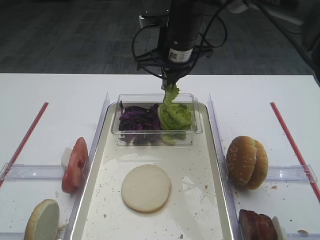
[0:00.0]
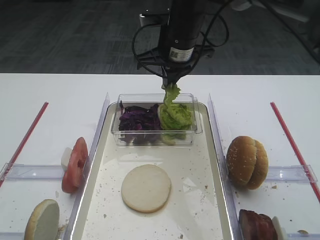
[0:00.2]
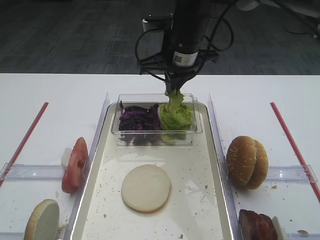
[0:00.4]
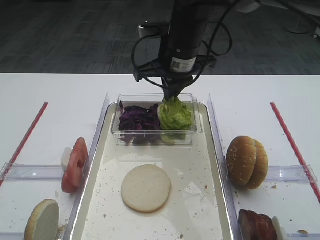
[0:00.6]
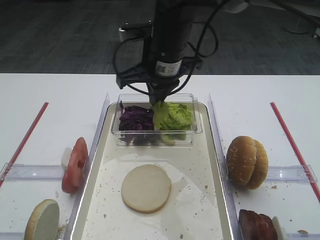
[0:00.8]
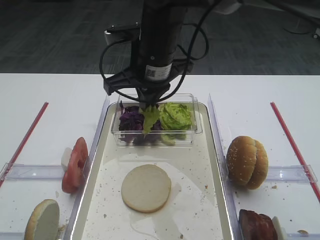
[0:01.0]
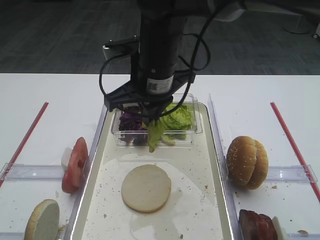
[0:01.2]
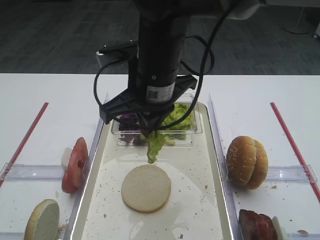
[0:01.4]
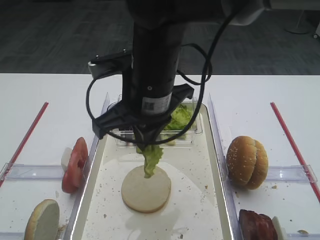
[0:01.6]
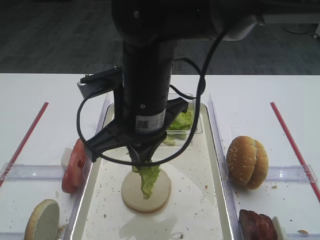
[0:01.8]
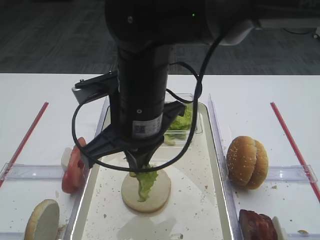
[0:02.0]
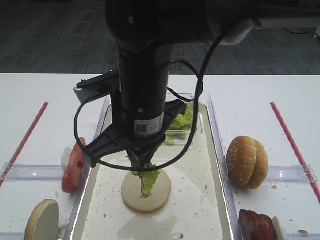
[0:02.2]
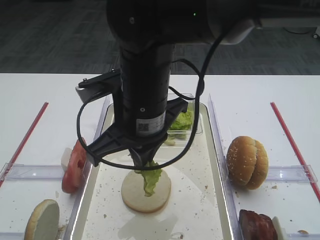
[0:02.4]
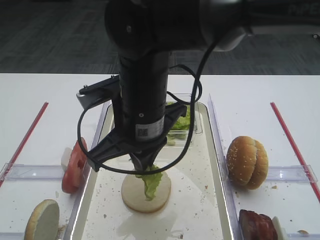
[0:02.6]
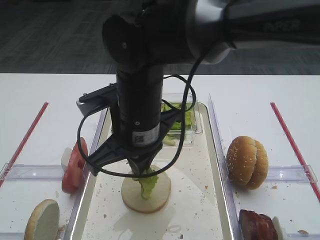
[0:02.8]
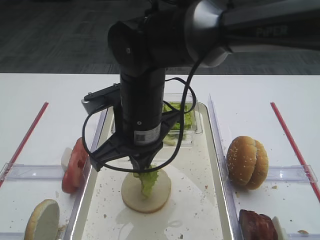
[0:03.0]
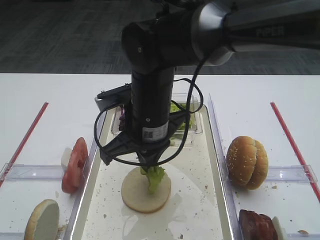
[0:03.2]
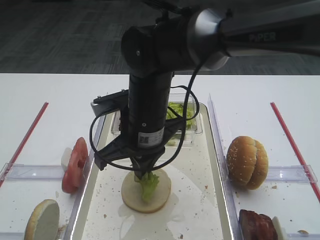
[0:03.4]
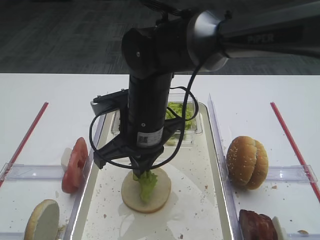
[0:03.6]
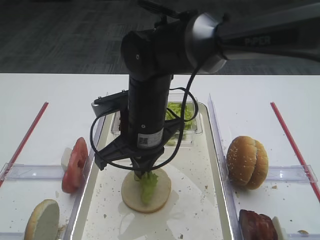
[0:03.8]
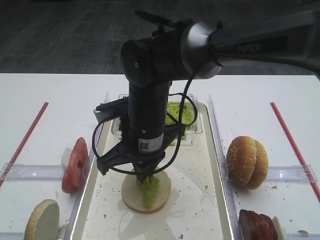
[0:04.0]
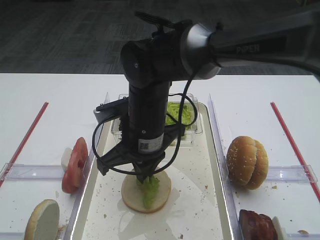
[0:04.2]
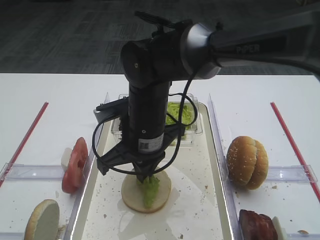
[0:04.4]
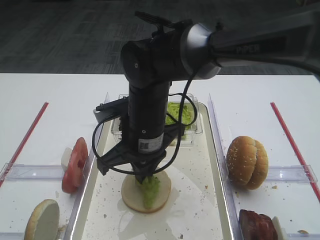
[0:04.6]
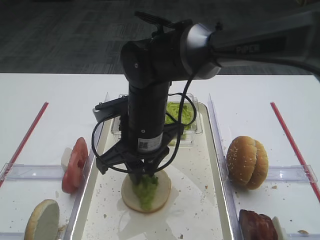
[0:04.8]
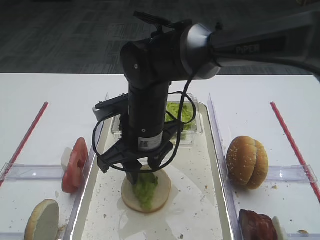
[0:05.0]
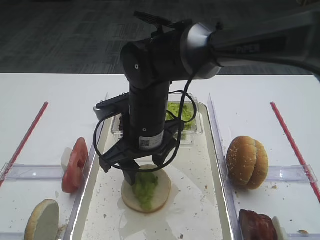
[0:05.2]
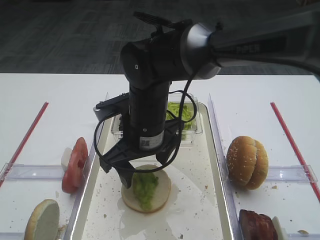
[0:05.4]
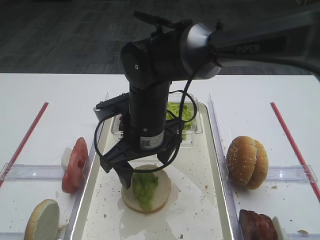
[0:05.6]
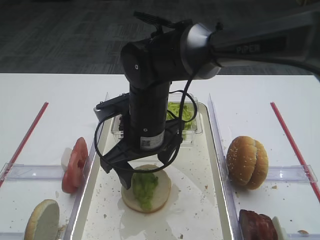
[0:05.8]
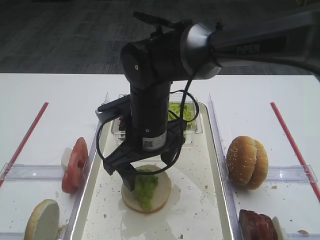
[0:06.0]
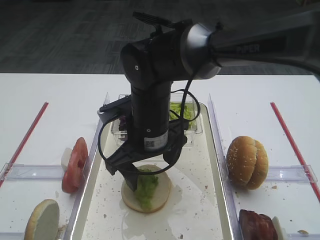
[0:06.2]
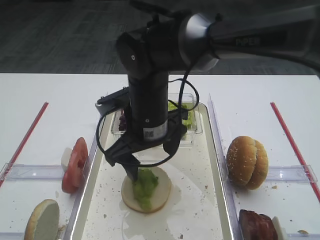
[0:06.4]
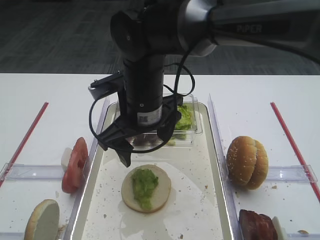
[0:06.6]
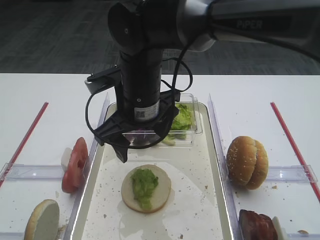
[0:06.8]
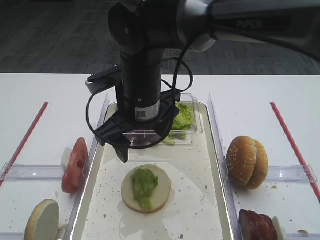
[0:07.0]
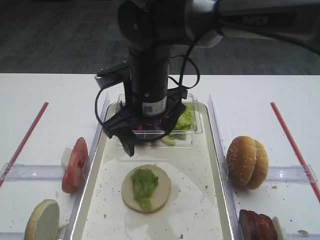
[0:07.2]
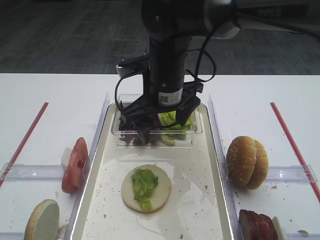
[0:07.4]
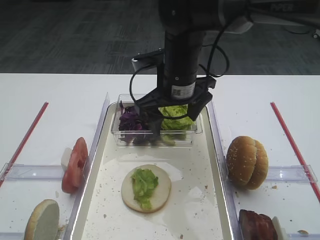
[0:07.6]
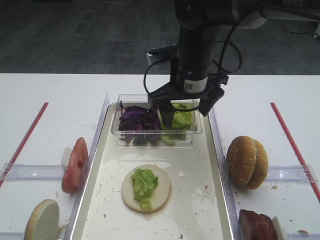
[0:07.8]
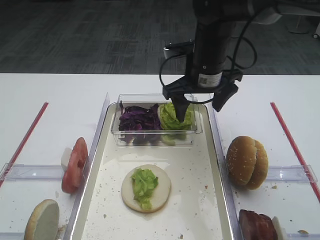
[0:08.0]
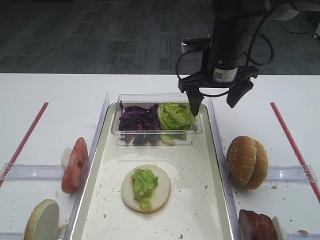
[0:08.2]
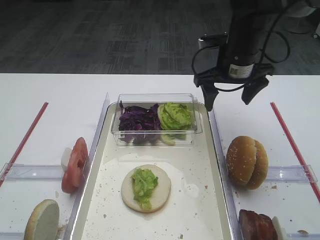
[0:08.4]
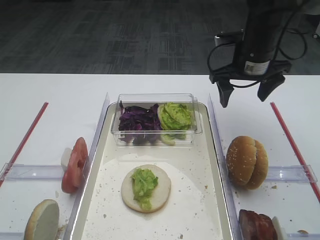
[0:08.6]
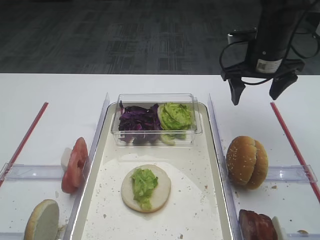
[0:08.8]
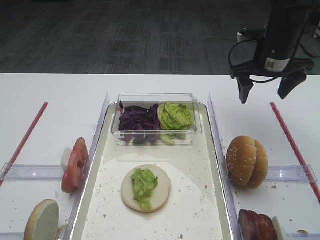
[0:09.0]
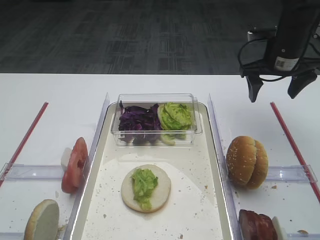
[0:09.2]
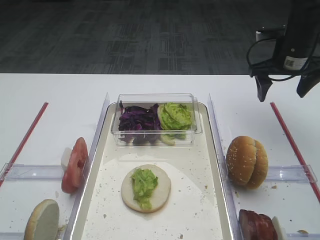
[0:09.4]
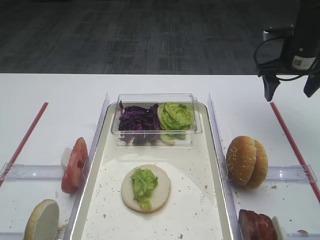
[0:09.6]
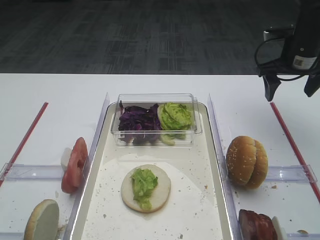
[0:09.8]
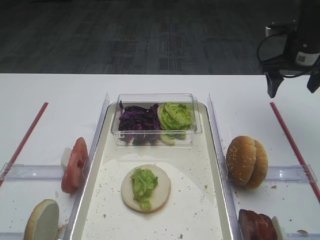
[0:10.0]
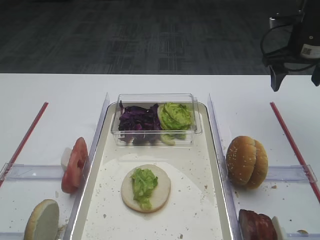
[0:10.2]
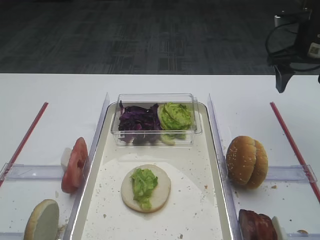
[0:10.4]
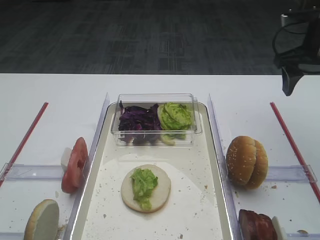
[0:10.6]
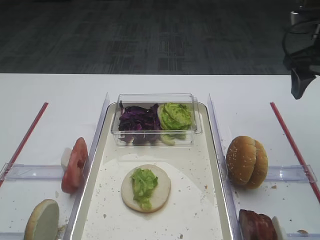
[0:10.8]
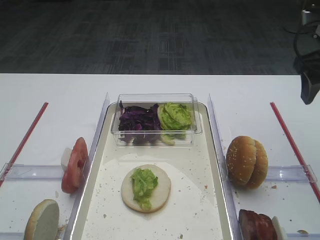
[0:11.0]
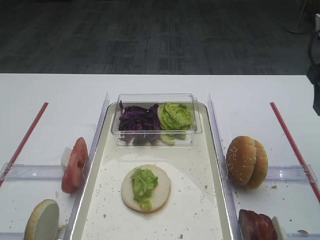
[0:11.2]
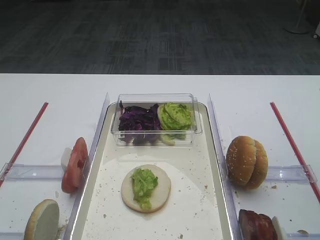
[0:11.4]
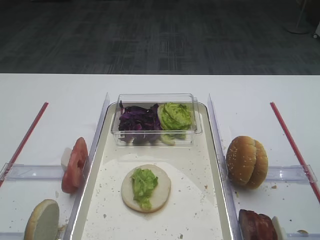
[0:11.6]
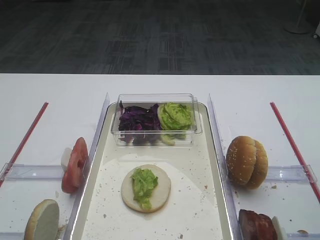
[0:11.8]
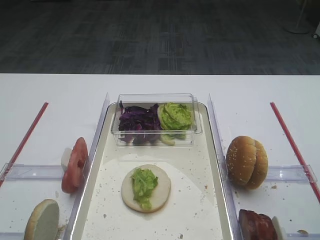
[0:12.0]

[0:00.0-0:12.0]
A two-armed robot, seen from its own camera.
Step, 0:00.0 to 0:06.0: Place the lettuce leaf on the bread slice with the right gripper.
0:00.0 to 0:01.6: The right gripper travels backward by approximately 15 cm.
0:01.6 to 0:03.0: The right gripper moves roughly 5 cm.
0:03.0 to 0:04.4: There are only small adjustments of the grippers.
0:04.4 to 0:06.0: The right gripper opens.
0:06.0 to 0:07.6: The right gripper goes about 10 cm forward and to the right.
0:07.6 to 0:09.0: The right gripper is displaced to the right and forward by roughly 20 cm.
0:09.0 to 0:10.4: The right gripper is displaced to the right by approximately 5 cm.
0:10.4 to 0:12.0: The right gripper shifts some 25 cm backward.

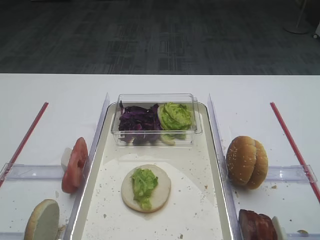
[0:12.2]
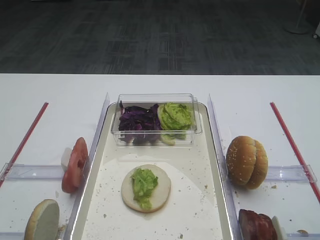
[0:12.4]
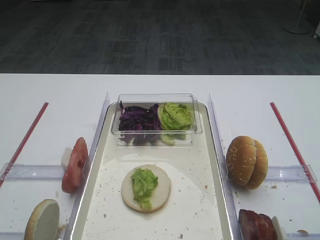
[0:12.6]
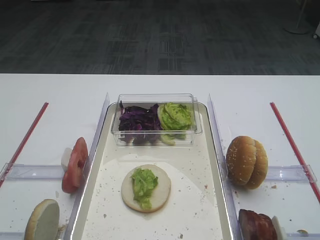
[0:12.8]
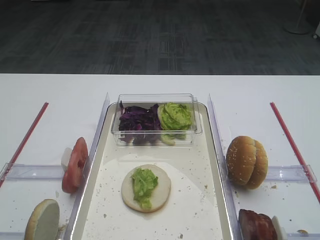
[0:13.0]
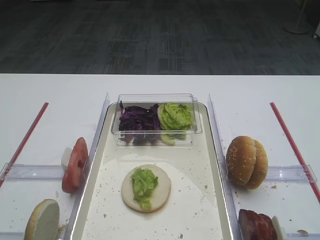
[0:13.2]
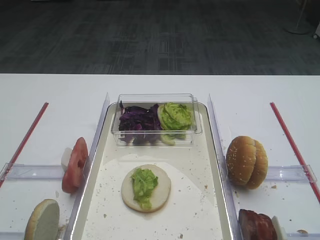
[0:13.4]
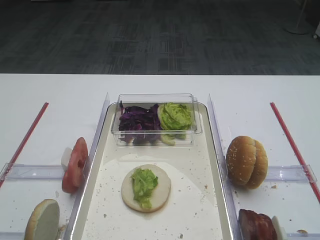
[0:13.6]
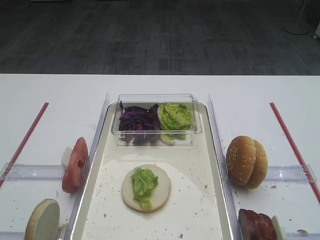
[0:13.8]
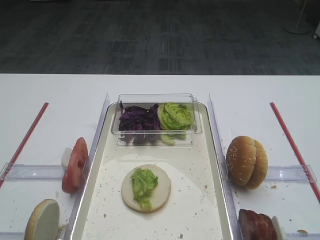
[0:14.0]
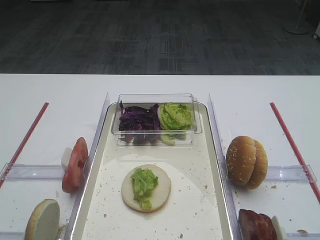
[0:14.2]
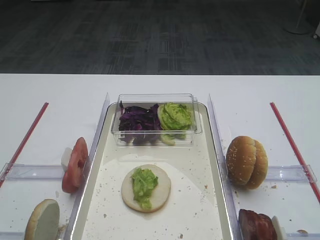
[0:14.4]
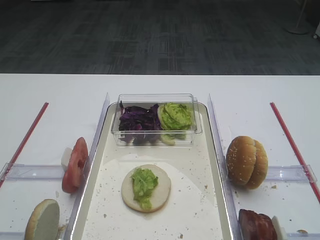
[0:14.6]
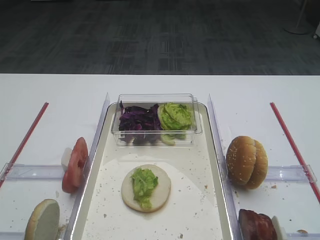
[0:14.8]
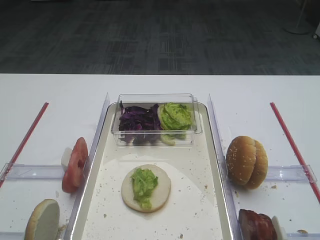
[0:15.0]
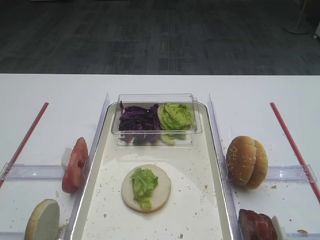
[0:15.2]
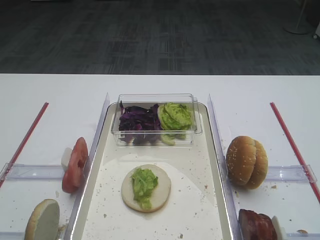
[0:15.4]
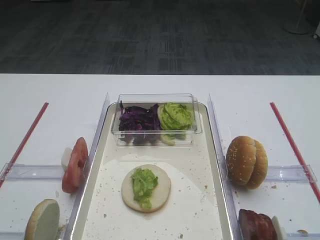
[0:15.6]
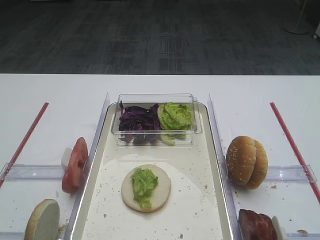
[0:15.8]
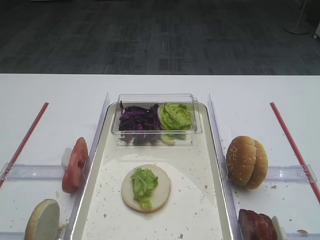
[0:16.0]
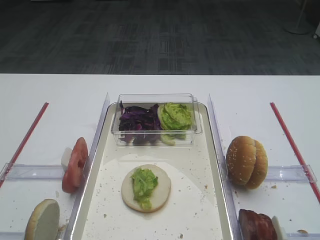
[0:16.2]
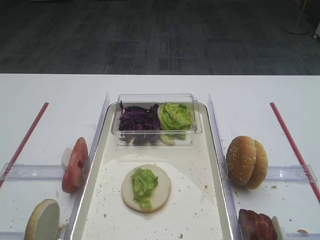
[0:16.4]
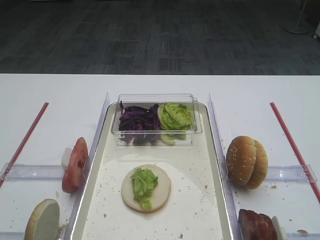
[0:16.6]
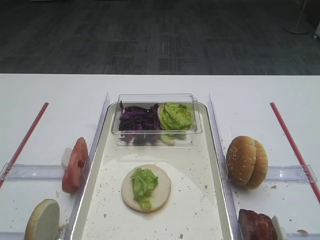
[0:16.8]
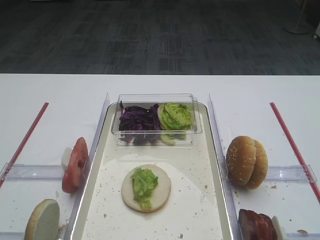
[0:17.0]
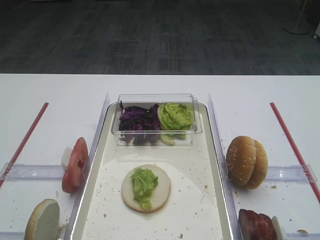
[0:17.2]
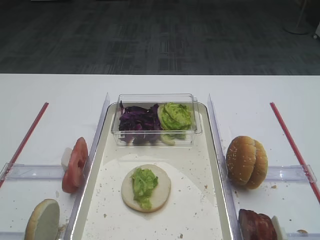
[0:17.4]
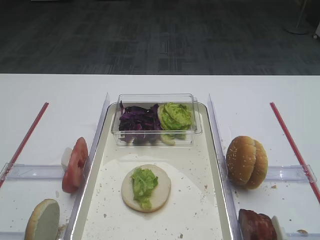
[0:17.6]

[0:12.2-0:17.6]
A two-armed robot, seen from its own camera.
0:13.6 to 0:17.6: Neither gripper changes place.

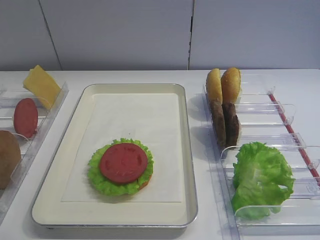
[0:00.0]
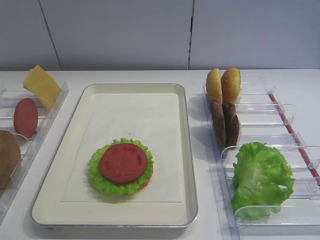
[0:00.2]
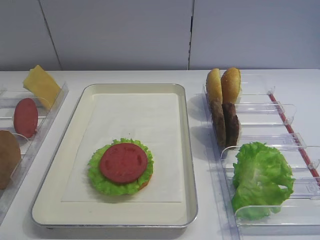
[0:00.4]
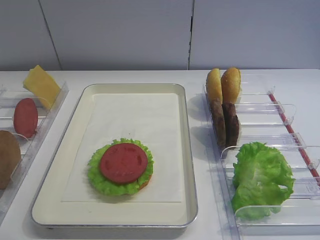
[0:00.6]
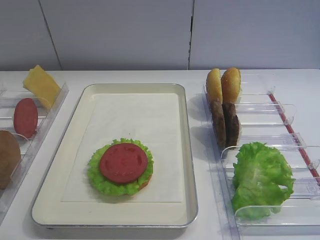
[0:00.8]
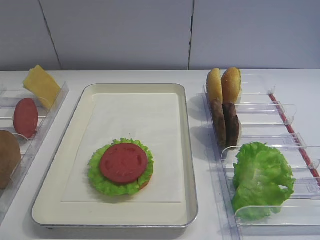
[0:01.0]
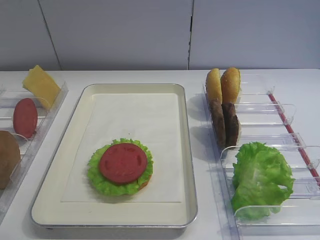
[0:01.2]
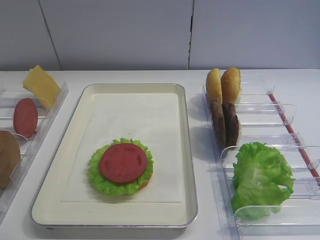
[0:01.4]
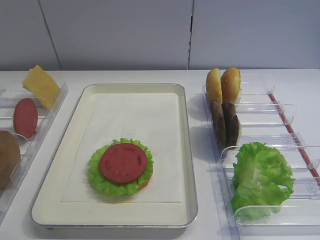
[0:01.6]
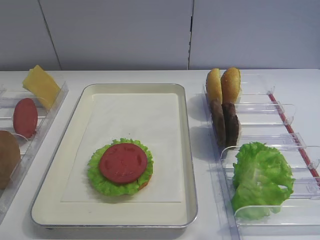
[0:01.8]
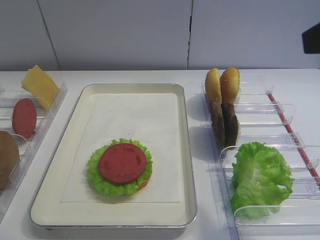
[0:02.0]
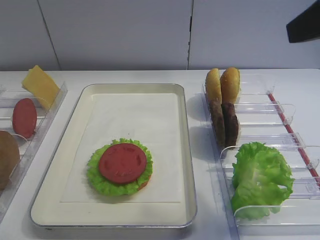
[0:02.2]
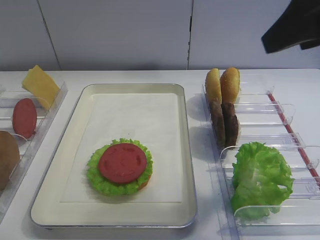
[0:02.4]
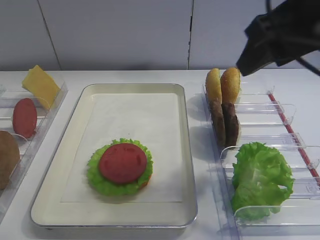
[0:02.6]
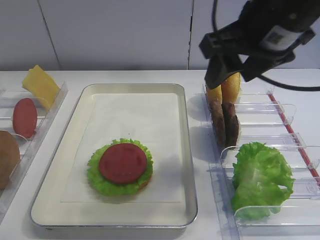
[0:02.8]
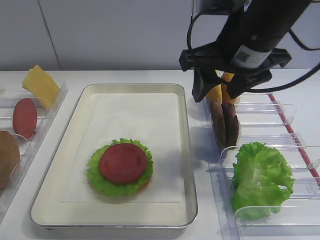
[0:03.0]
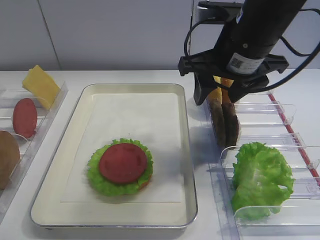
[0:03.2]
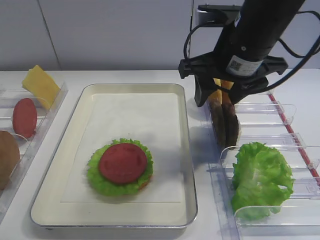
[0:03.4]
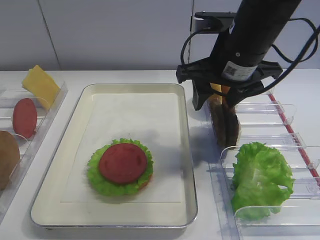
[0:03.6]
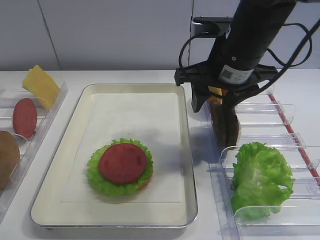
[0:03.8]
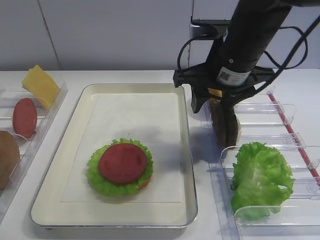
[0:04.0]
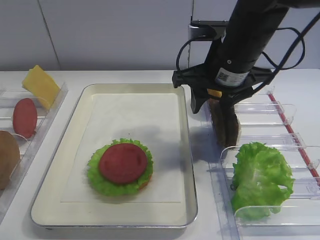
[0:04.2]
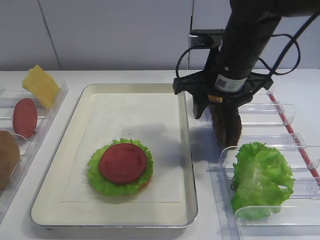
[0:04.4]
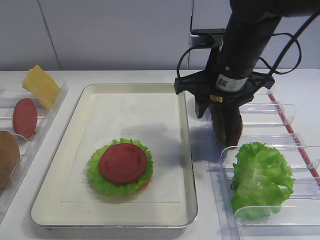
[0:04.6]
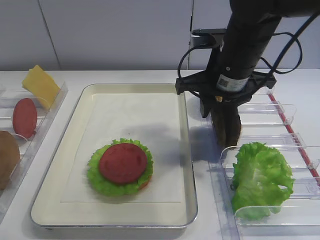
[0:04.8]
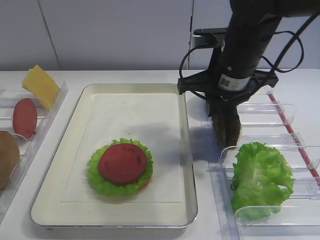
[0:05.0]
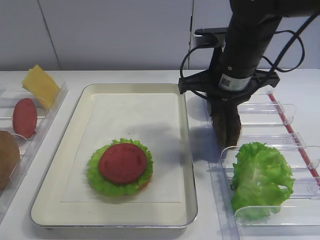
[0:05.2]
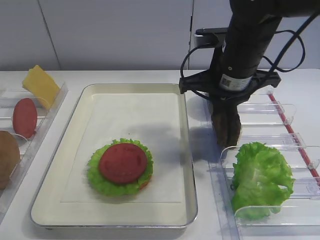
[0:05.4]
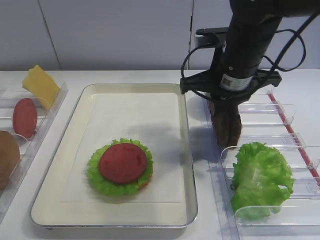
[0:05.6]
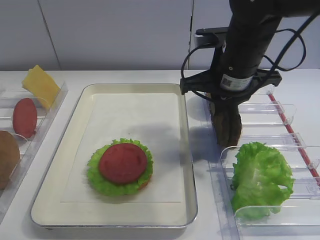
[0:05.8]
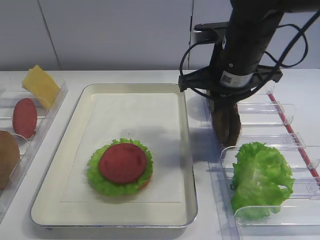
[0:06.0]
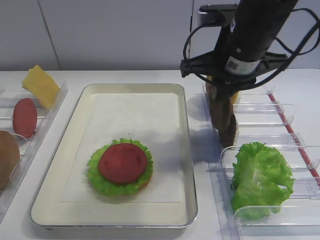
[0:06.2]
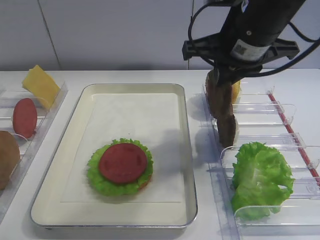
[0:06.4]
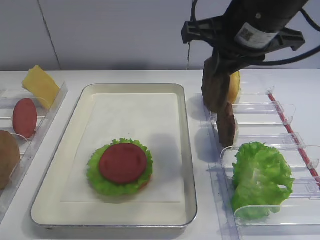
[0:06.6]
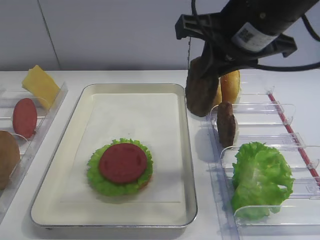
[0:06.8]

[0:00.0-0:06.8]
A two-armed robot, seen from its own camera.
Step, 0:00.0 to 0:06.2: Pick up the cutlet with the right gripper.
0:01.4 to 0:02.8: The right gripper moves forward and to the left, approximately 25 cm.
0:02.8 to 0:04.0: The right gripper moves downward and forward, about 10 cm.
0:04.0 to 0:05.4: The right gripper closes up.
0:05.4 to 0:06.8: The right gripper travels upward and backward by approximately 10 cm.
